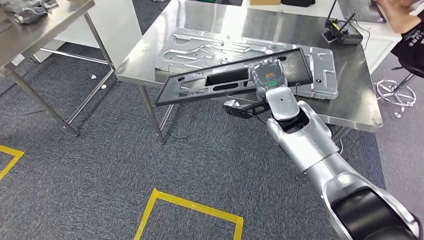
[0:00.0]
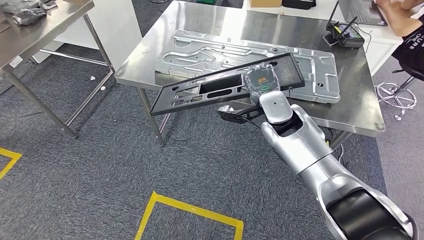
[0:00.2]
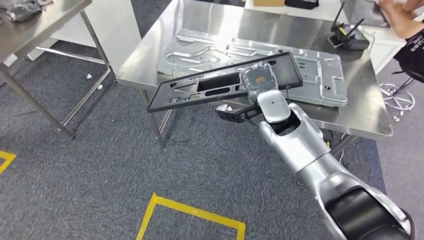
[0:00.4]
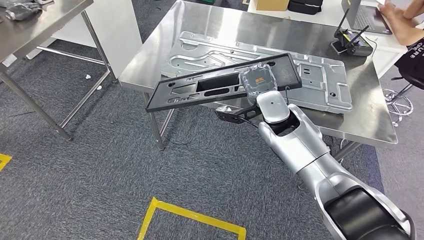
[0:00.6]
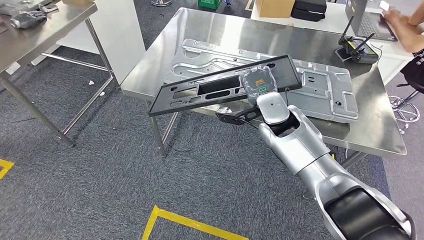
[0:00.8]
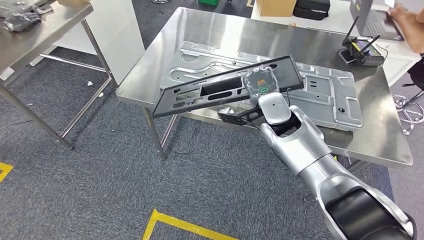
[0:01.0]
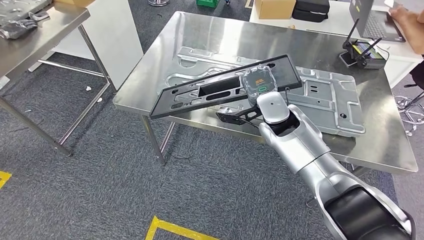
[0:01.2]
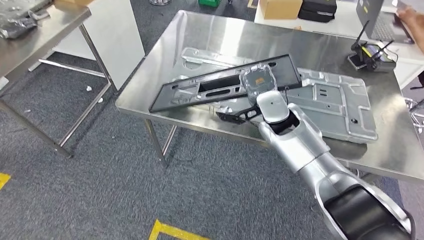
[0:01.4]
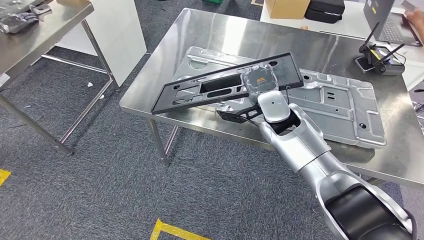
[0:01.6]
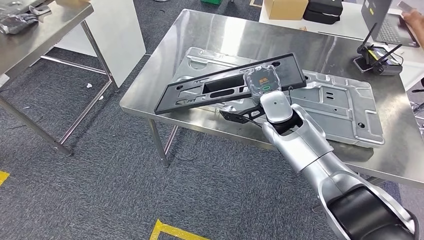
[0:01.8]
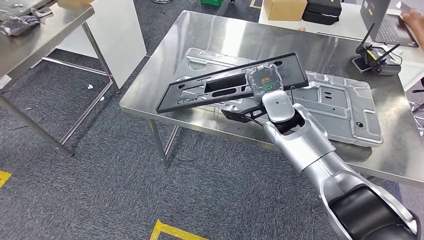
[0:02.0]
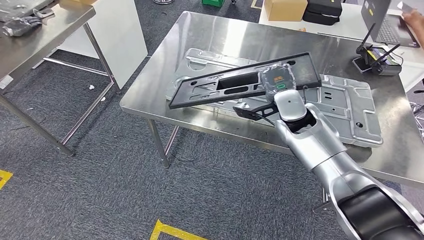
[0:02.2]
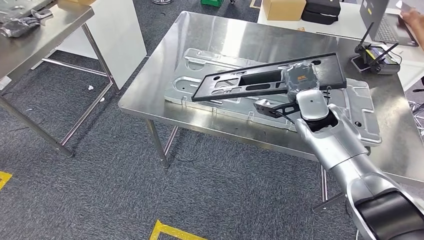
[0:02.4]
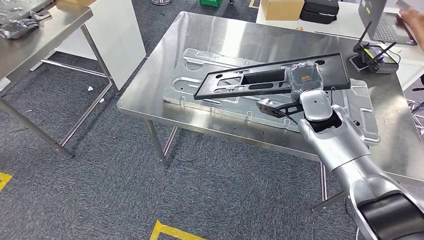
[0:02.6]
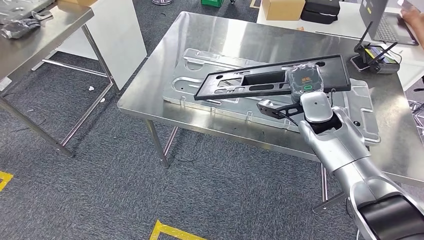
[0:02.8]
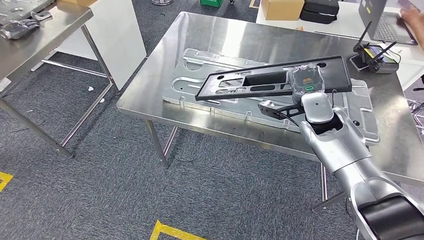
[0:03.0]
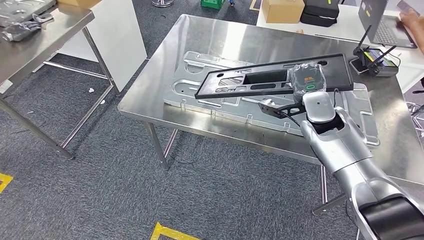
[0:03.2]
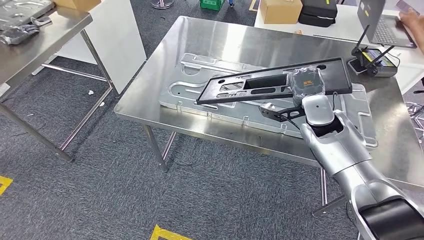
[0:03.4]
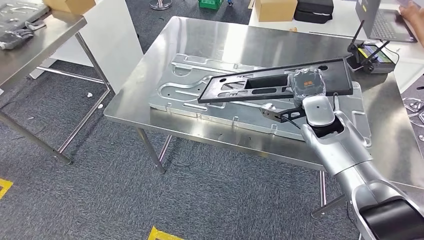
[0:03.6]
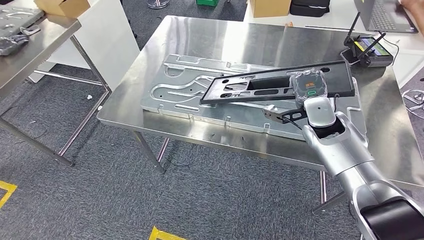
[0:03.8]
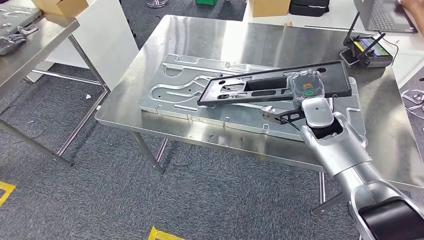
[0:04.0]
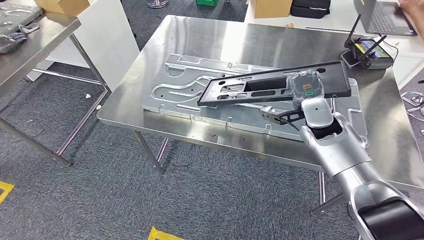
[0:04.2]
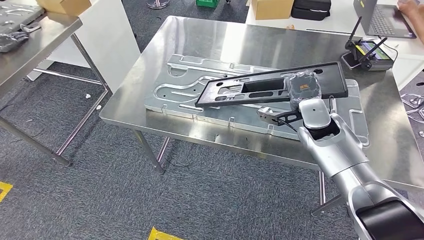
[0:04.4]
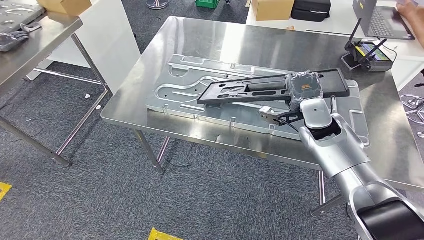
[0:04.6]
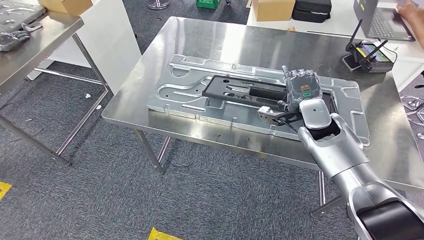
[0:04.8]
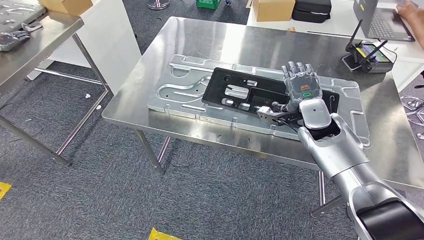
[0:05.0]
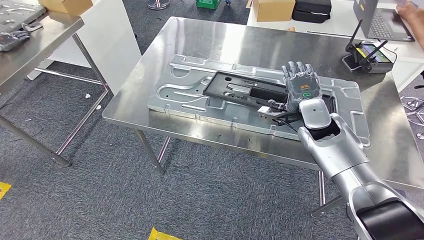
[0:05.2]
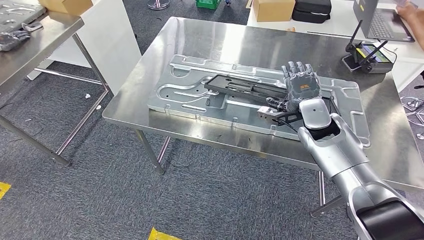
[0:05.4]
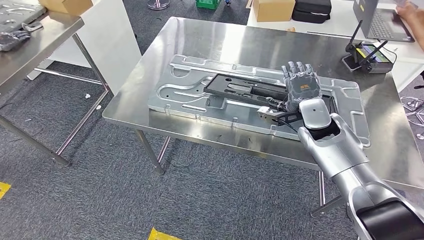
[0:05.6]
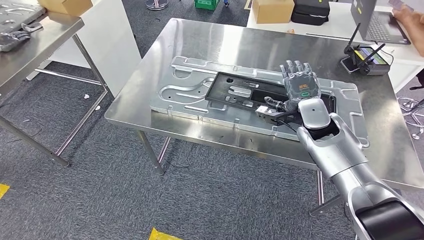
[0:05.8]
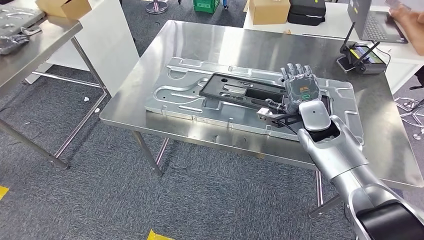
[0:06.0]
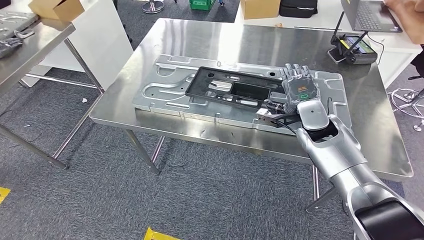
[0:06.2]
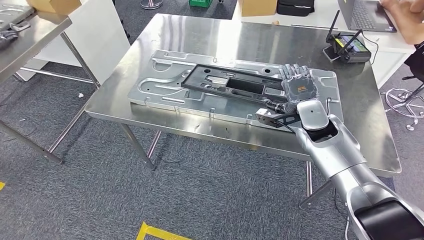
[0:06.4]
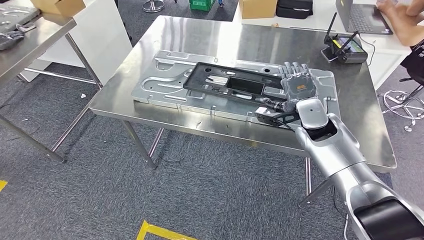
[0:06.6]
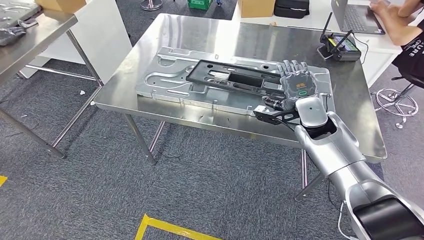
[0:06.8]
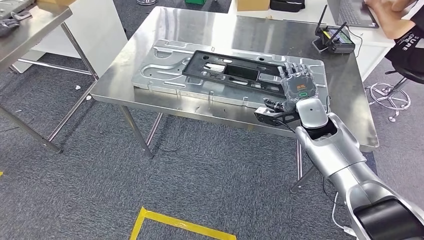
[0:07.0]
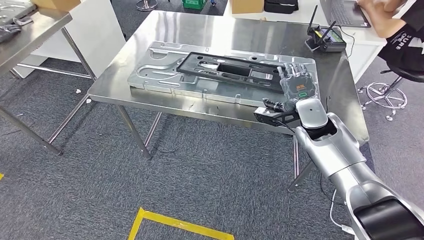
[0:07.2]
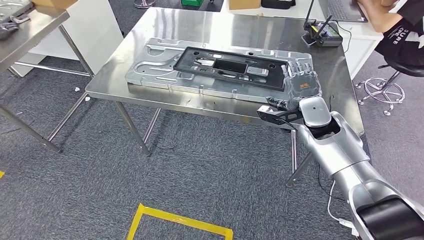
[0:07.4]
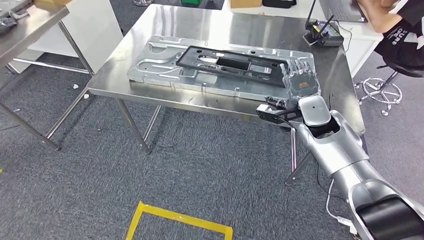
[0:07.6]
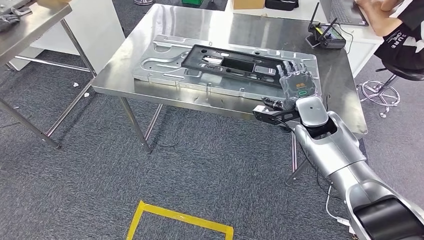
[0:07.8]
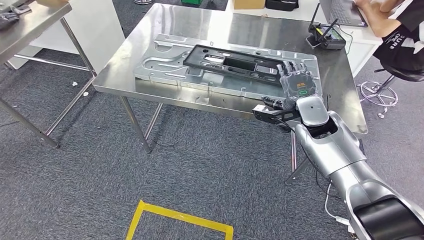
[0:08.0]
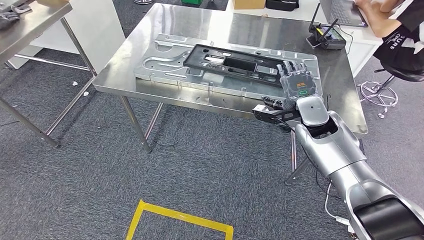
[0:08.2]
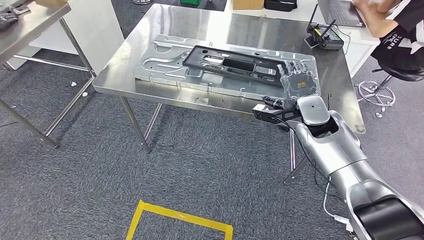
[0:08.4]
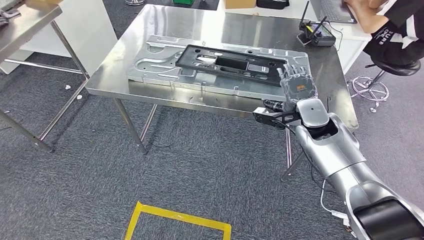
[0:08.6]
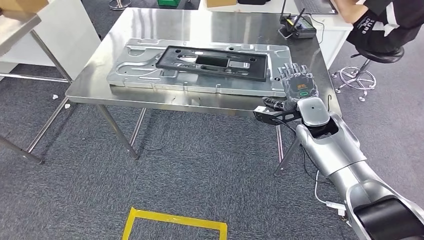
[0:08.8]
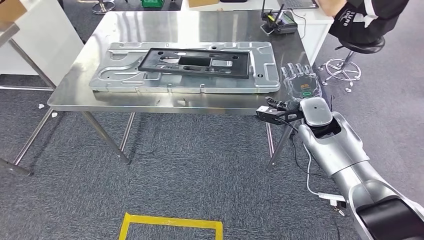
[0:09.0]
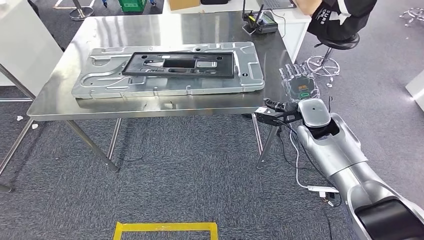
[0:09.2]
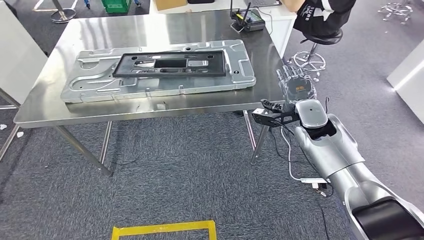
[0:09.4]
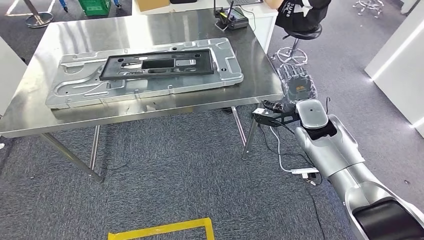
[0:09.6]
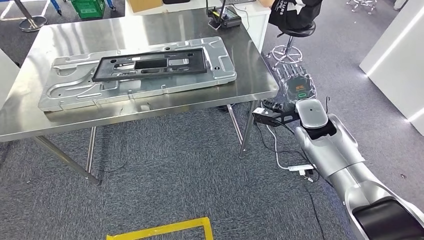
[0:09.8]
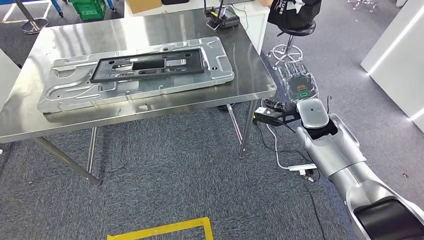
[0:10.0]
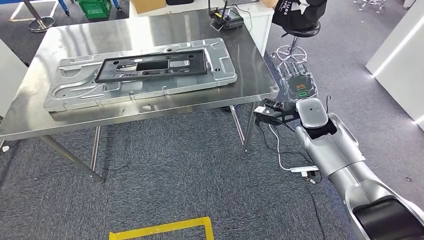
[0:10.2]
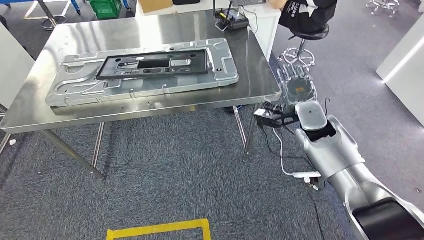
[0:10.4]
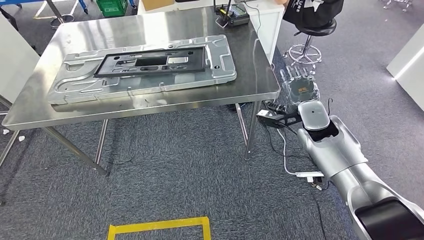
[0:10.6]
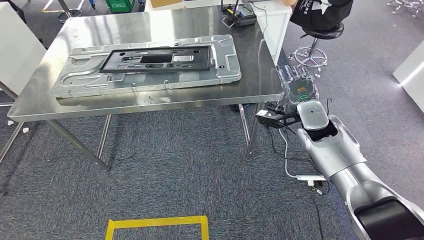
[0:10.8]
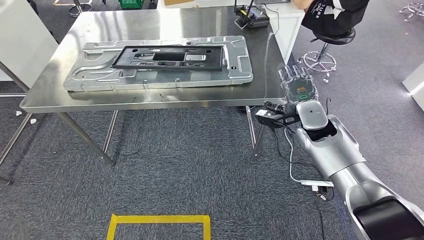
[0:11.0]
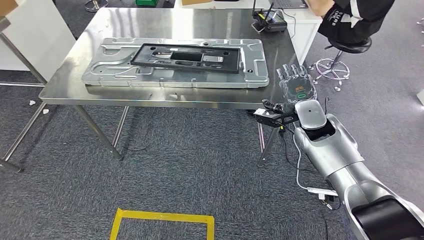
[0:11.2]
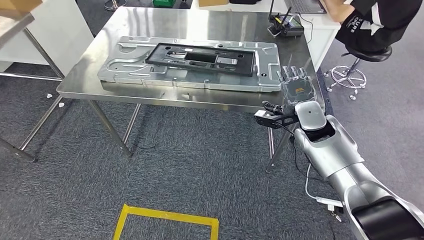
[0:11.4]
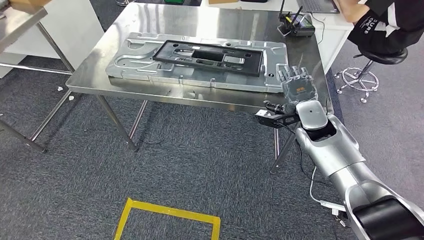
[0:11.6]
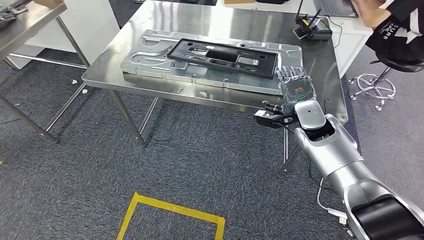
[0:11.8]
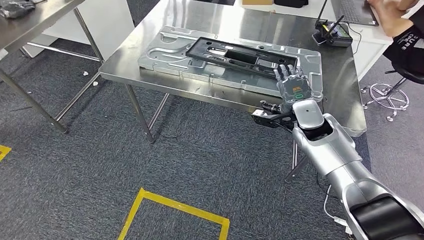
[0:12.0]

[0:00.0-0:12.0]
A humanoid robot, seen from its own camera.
Step, 0:00.0 to 0:08.8: Insert the large material into the corresponding slot on the workbench.

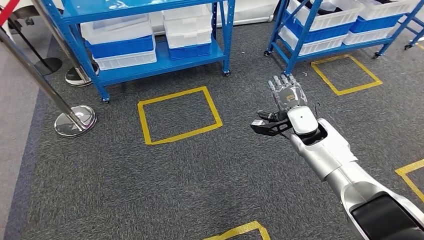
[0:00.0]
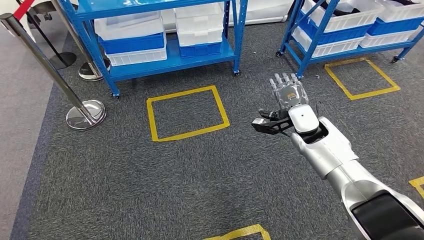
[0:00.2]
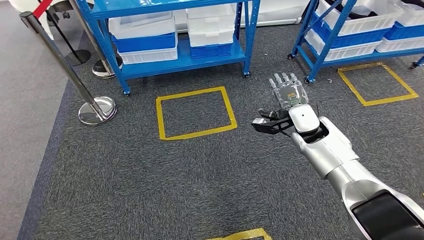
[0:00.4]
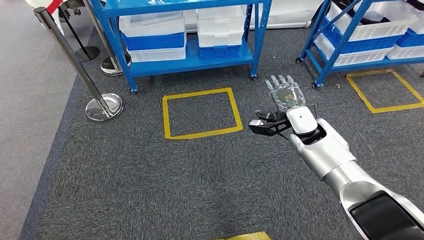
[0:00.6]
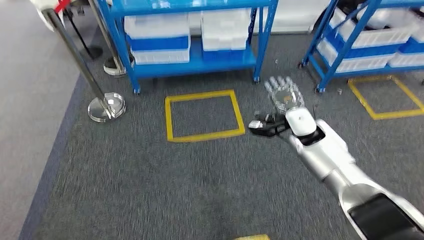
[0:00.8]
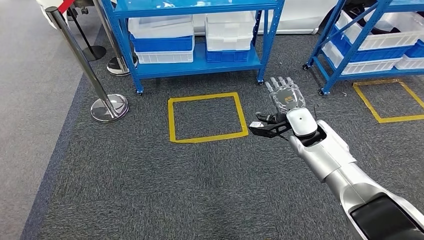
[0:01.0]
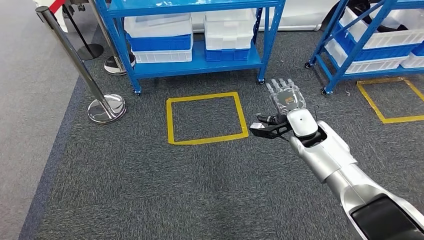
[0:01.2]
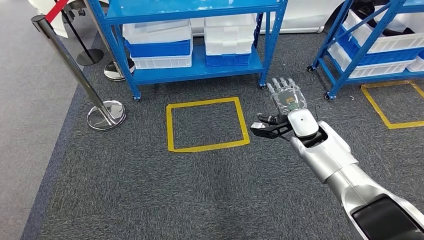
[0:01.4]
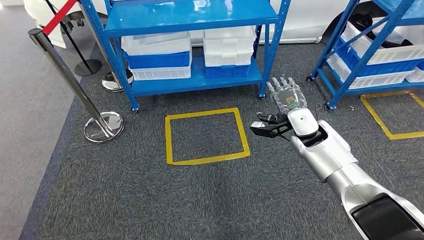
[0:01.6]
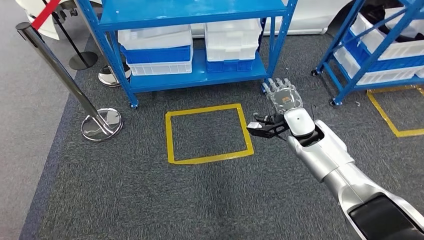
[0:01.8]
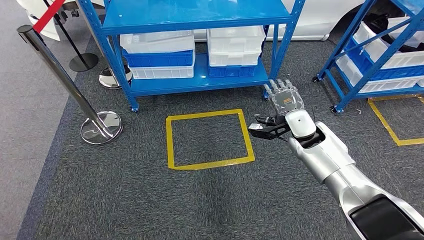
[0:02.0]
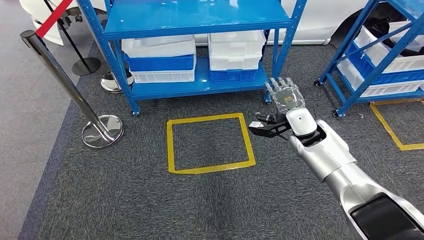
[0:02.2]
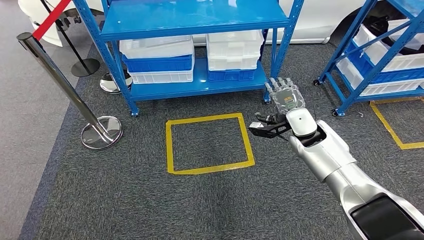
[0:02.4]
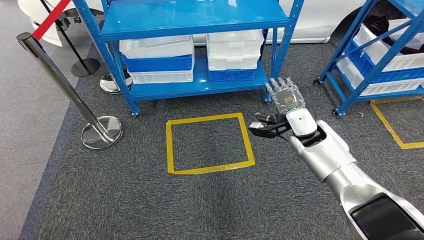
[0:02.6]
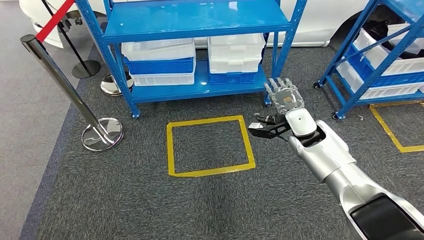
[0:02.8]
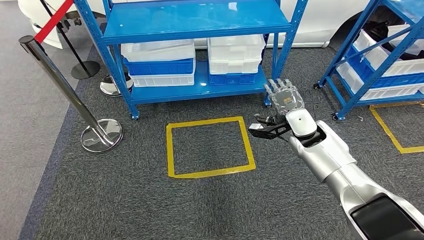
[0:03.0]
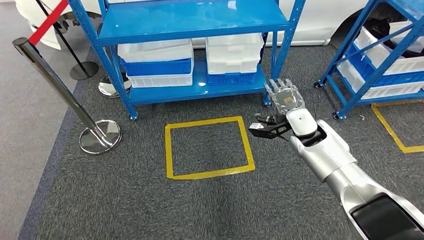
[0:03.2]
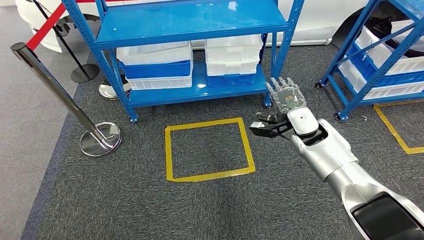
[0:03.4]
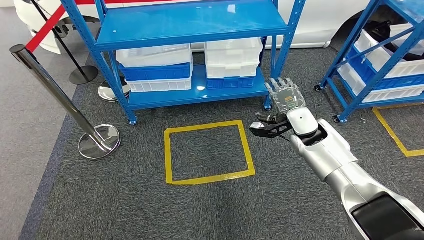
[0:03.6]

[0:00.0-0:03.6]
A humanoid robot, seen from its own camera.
Step, 0:00.0 to 0:03.6: Move to the initial position of the shelf.
